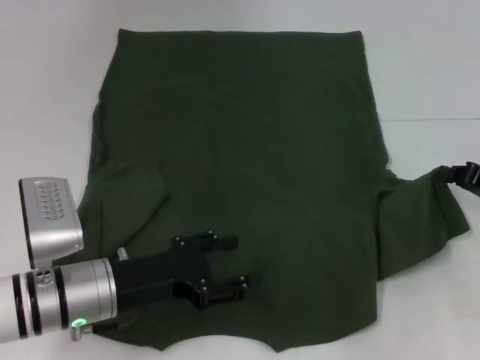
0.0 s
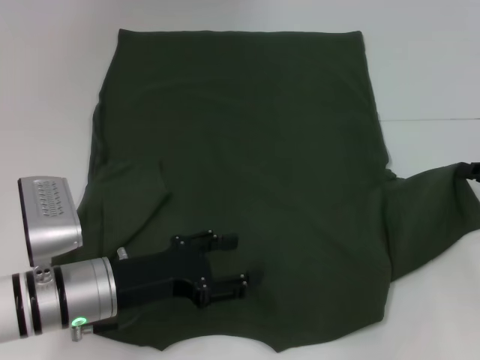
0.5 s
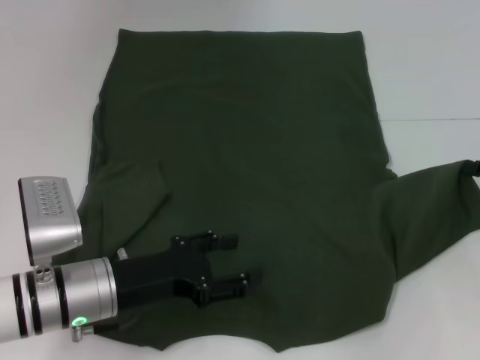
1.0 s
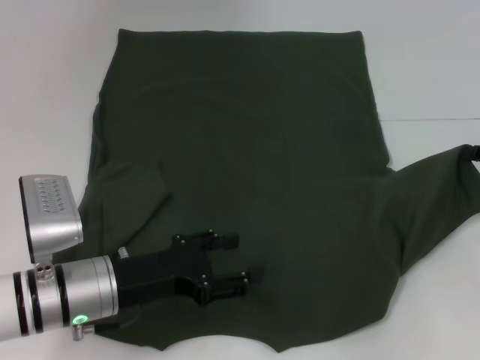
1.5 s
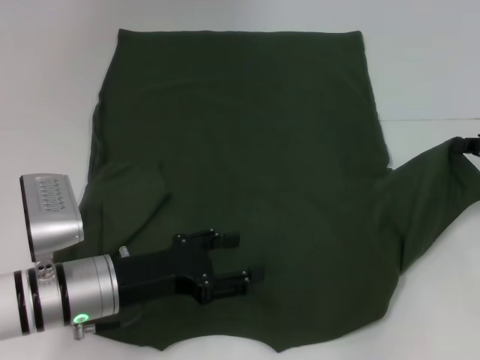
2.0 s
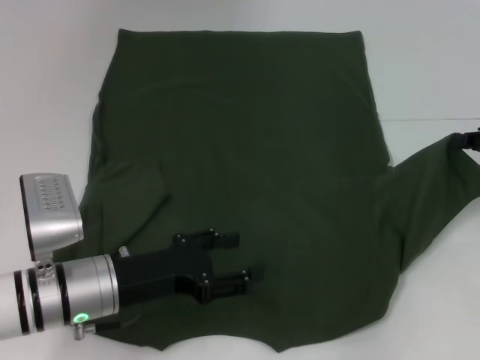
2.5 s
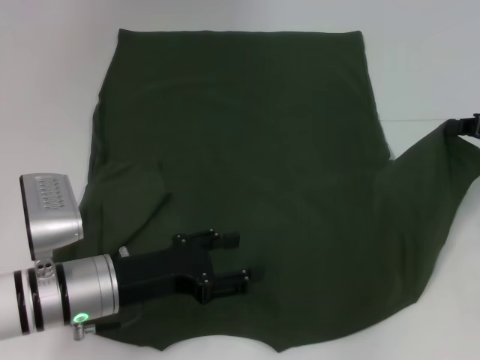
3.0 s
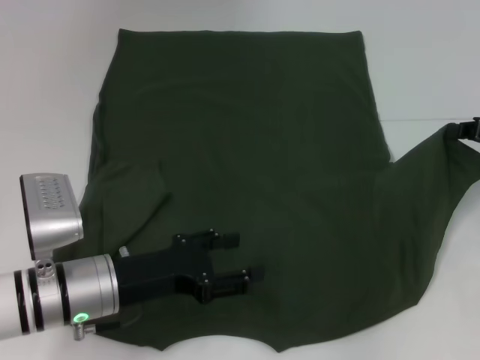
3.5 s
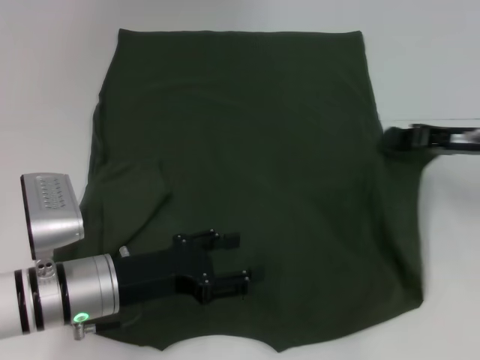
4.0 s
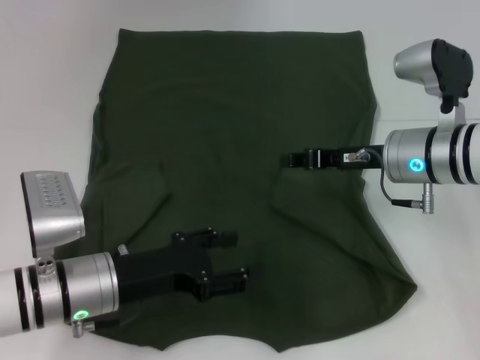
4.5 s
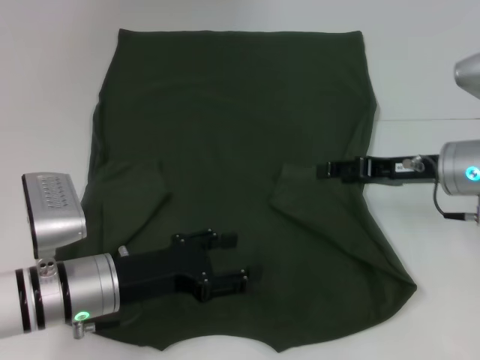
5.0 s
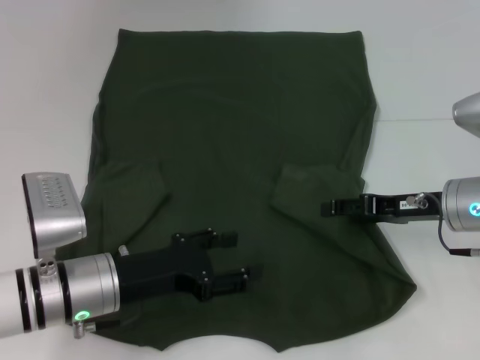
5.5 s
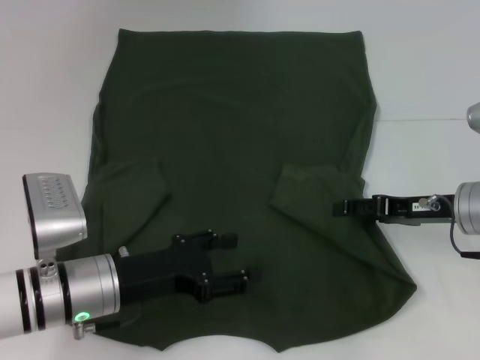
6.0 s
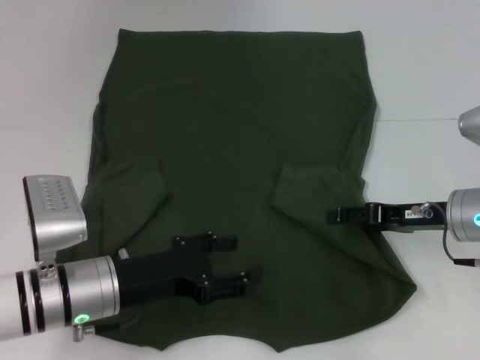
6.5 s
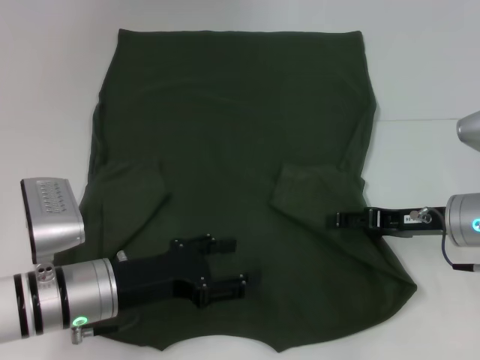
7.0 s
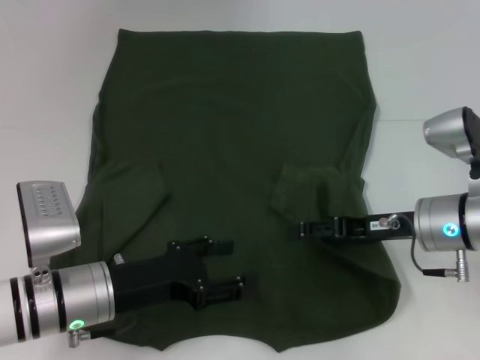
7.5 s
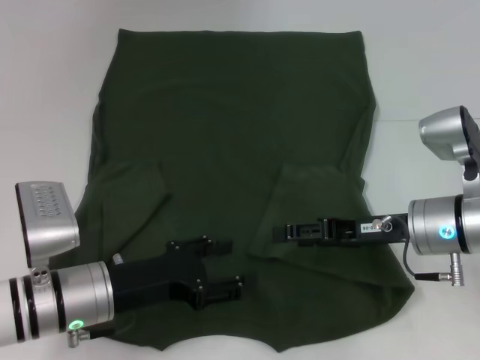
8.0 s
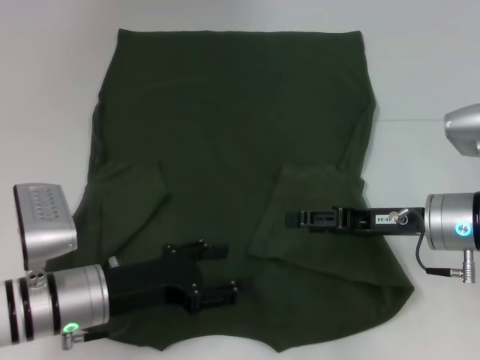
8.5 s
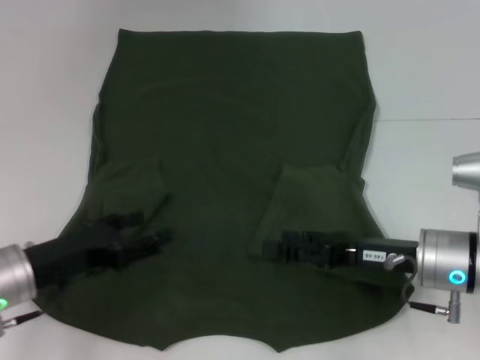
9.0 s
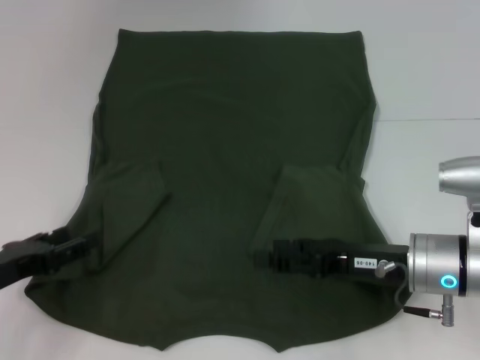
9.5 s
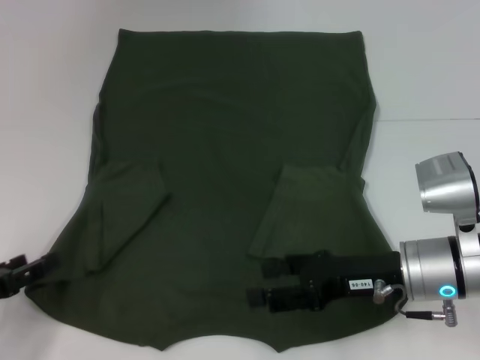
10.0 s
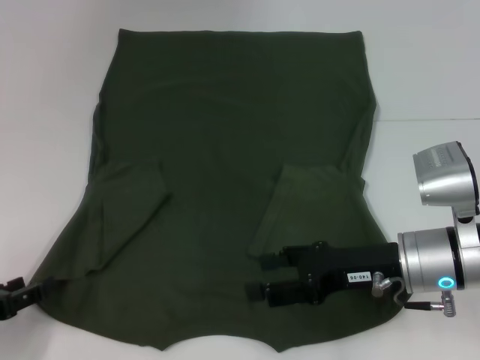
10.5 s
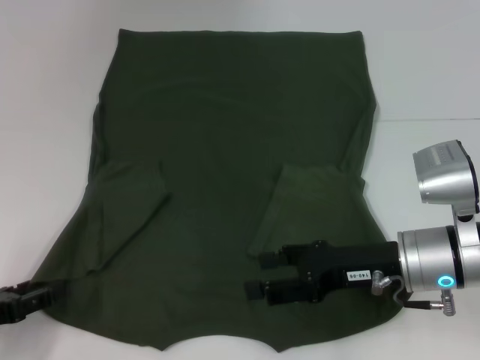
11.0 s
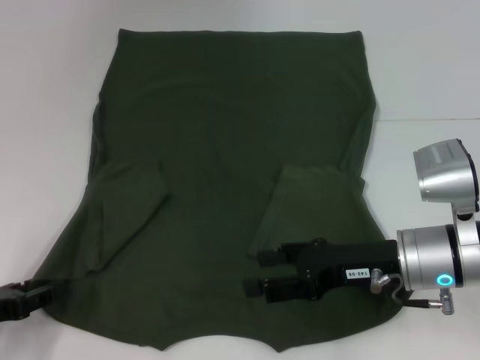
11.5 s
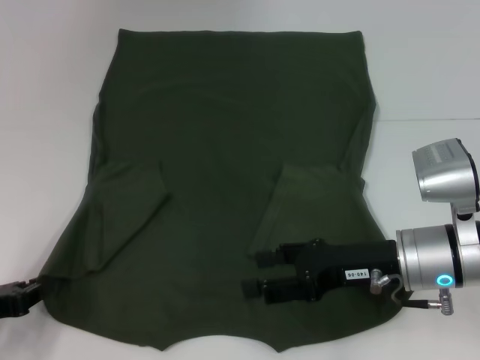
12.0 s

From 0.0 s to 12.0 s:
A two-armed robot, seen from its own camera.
Step, from 0.0 s to 7.5 s: Fold the bottom right sleeve with your right hand.
From 0.0 s to 2.0 s: The grippers stay close to where they were, moving slightly.
From 2.0 s to 4.0 s: The right gripper is displaced to the left by about 5 cm.
From 4.0 s to 6.0 s: The right gripper travels downward by about 5 cm, goes to the left and returns, approximately 10 cm each way, and opens its fingers.
From 6.0 s to 8.0 s: The right gripper is displaced to the left by about 5 cm.
From 8.0 s to 10.0 s: The left gripper is displaced to the left by roughly 15 cm.
From 10.0 s to 12.0 s: The left gripper closes up.

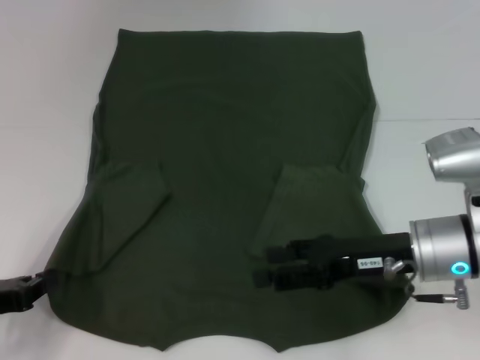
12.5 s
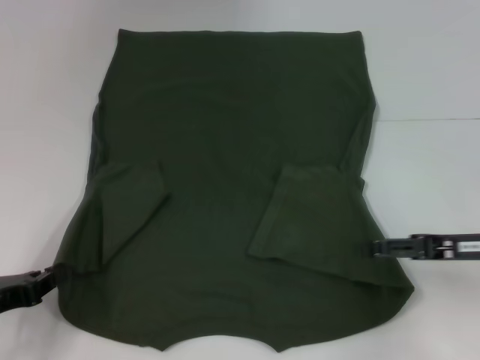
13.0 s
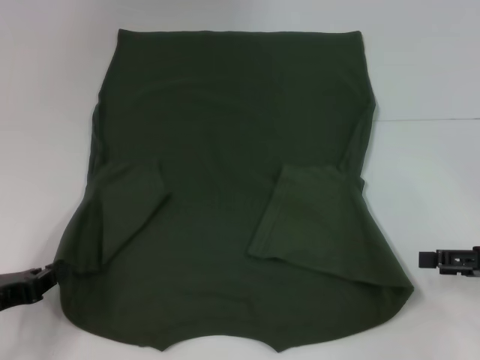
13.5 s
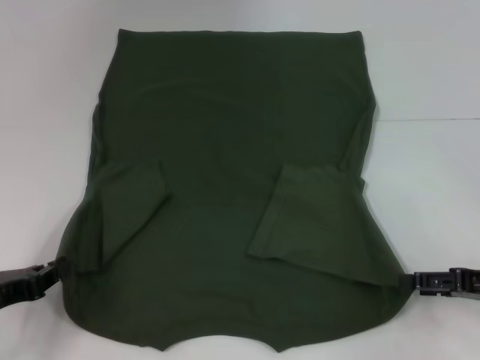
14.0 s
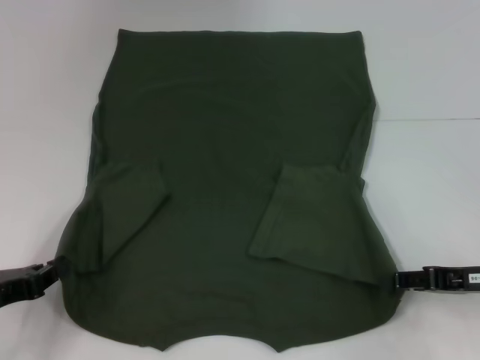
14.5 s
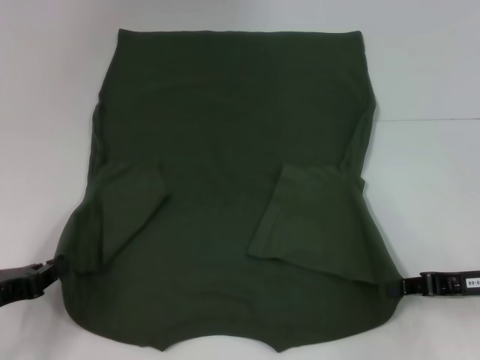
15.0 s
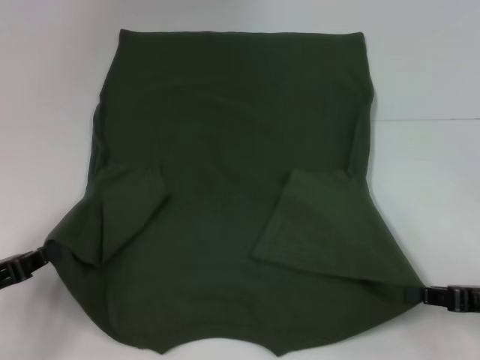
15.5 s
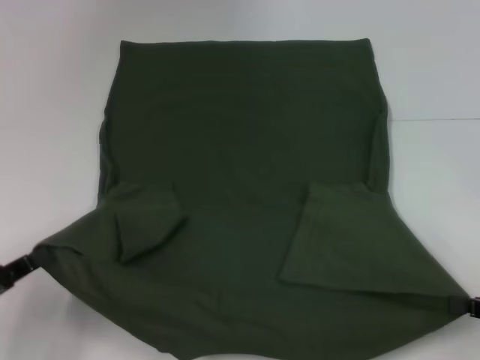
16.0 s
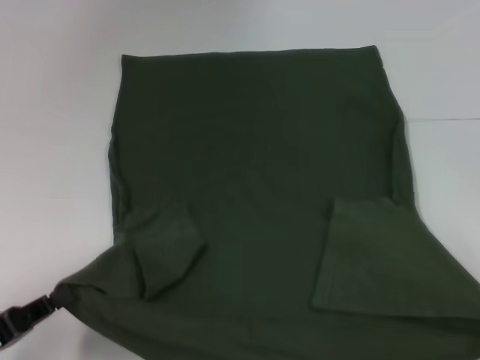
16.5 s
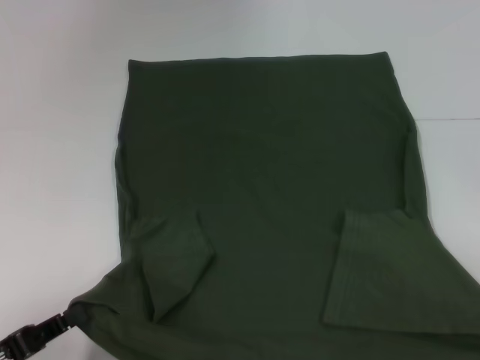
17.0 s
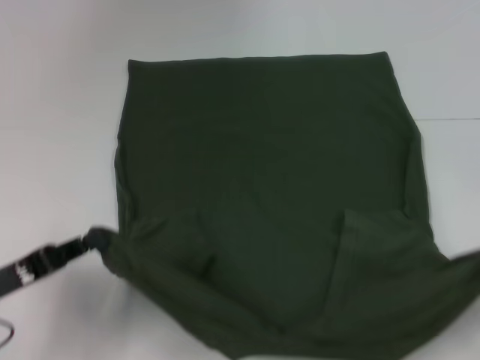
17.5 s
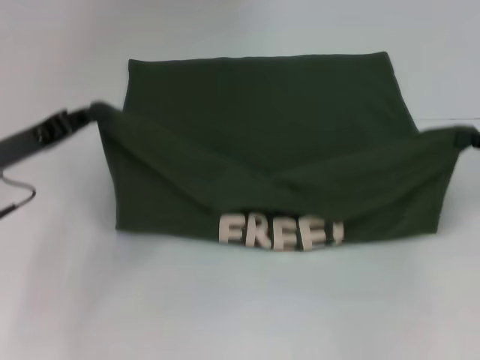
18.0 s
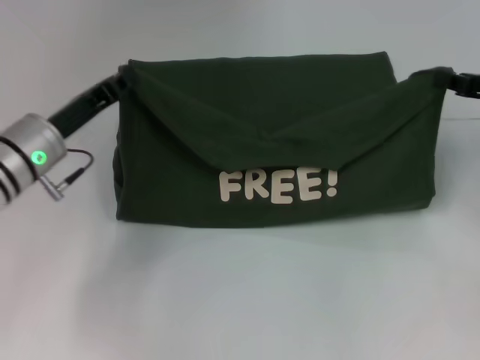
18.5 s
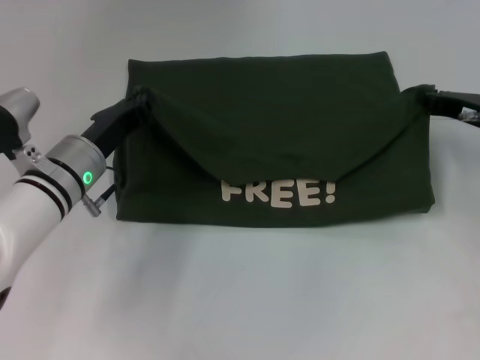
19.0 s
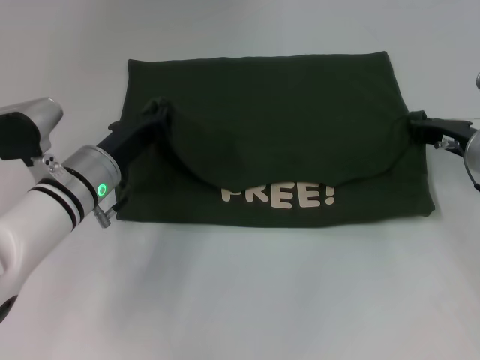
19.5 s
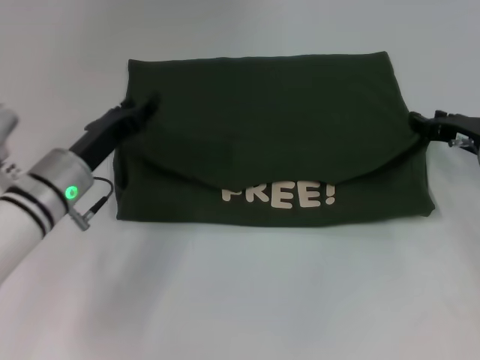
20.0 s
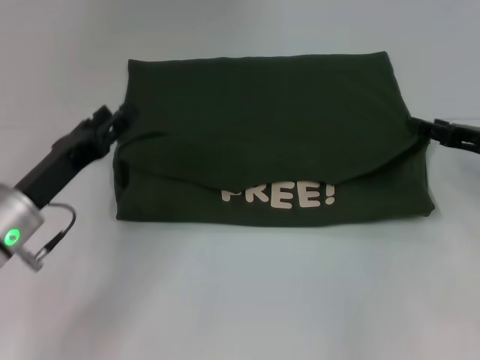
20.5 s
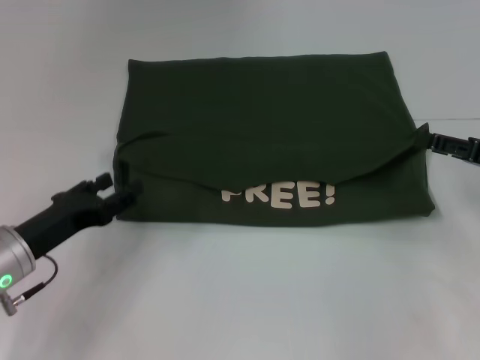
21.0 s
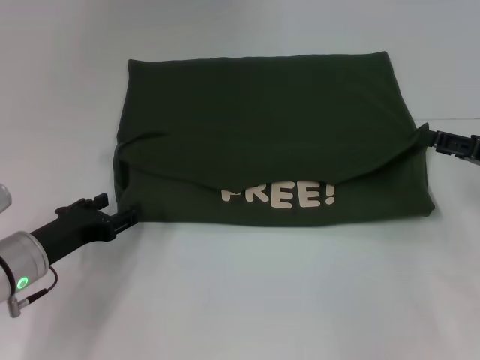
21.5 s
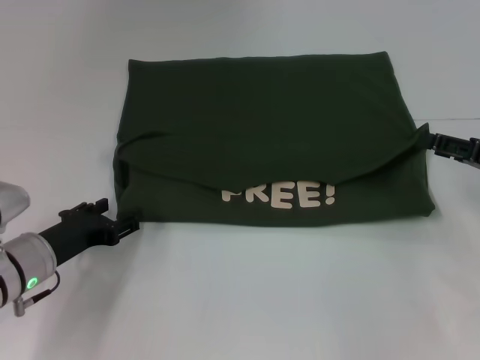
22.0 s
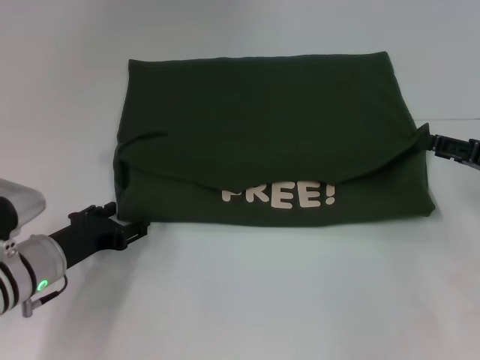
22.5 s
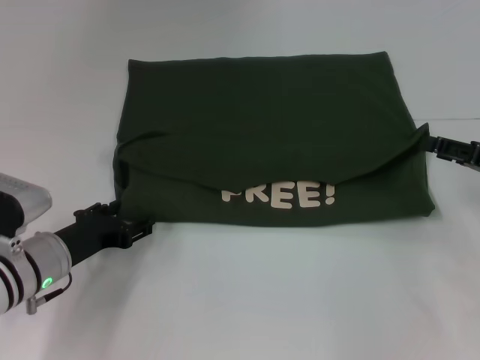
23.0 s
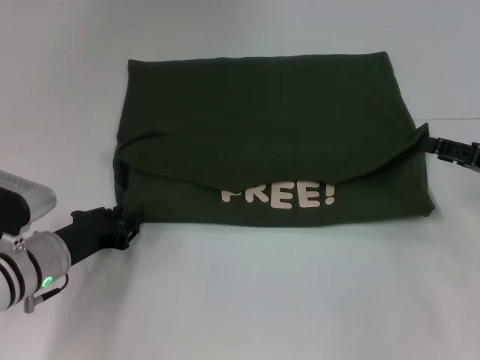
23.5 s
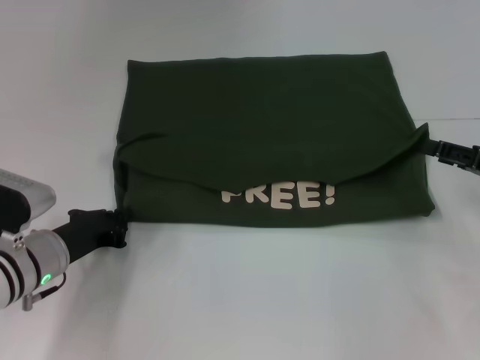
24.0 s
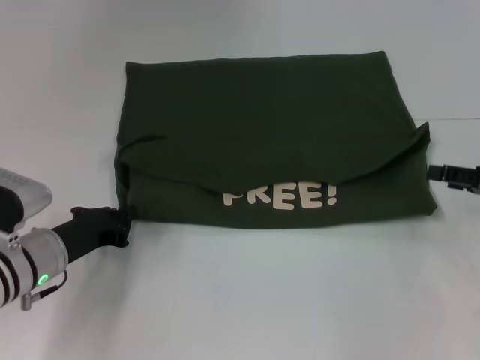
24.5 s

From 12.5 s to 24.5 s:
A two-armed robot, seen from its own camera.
Step, from 13.0 s to 15.0 s: Grab the bottom right corner with your right hand.
Step, from 15.5 s to 19.5 s: Fold the clothes with your left hand.
Step, from 15.5 s to 19.5 s: Fold the clothes with your right hand.
From 12.5 s to 14.5 s: The right gripper shifts some 10 cm to the right.
From 14.5 s to 16.5 s: The left gripper shifts roughly 5 cm backward; the right gripper is displaced to the right and backward by approximately 15 cm, and closes its fingers.
From 16.5 s to 18.5 s: The right gripper travels forward by some 20 cm, while the left gripper travels forward and to the right by about 25 cm.
From 18.5 s to 20.5 s: The left gripper travels backward by roughly 5 cm, and opens its fingers; the right gripper opens.
From 20.5 s to 22.5 s: The left gripper moves downward, about 5 cm.
From 22.5 s to 24.5 s: The left gripper closes.

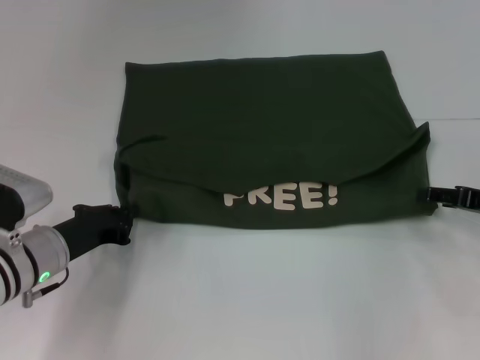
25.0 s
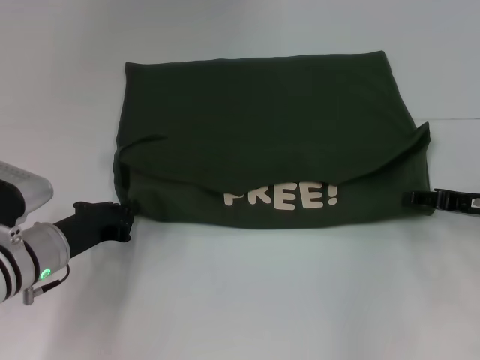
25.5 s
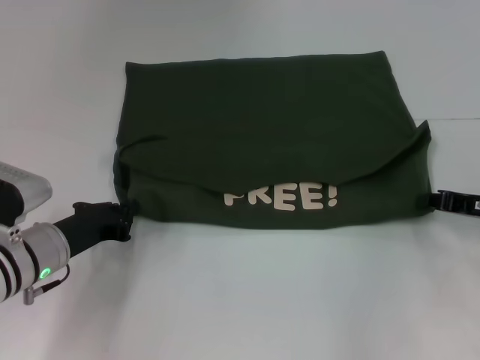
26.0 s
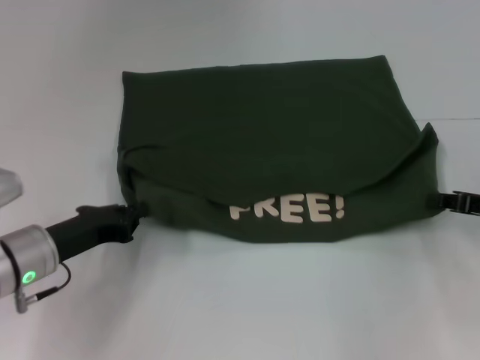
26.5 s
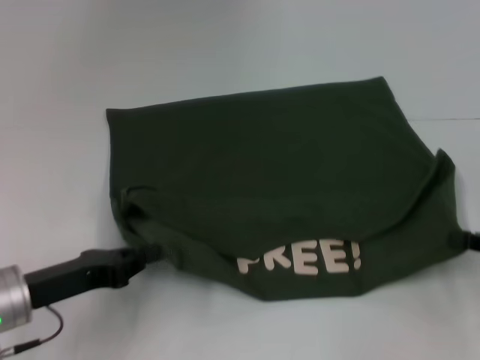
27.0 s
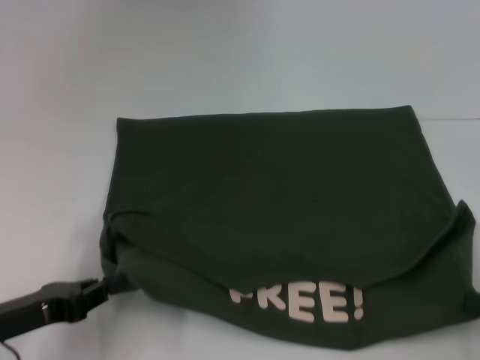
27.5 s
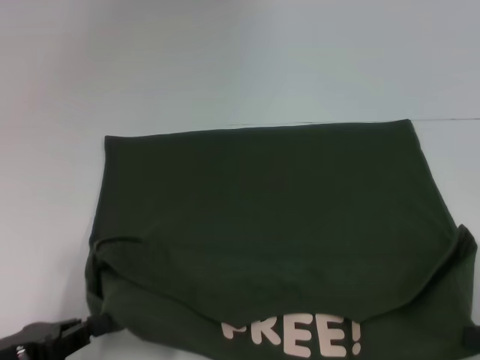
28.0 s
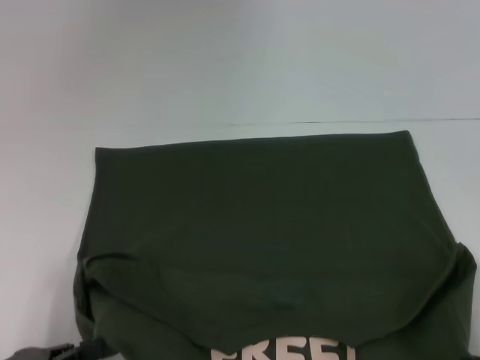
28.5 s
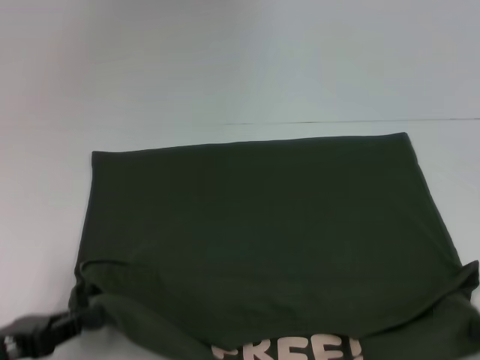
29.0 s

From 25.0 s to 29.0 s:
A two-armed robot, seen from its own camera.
Step, from 25.0 s to 28.5 s: Pull the clothes with your left hand.
Step, from 25.0 s to 28.5 s: Pull the clothes with your right hand.
From 25.0 s to 27.0 s: The grippers both shift backward by approximately 5 cm. The right gripper closes.
From 27.0 s to 29.0 s: The left gripper heads backward and to the left, covering roughly 10 cm. The right gripper shifts some 10 cm backward.
